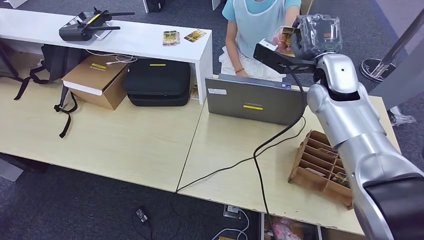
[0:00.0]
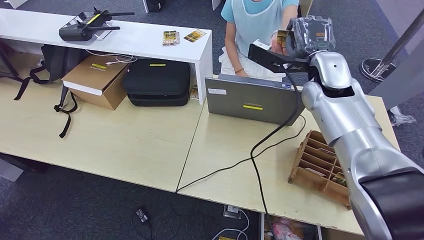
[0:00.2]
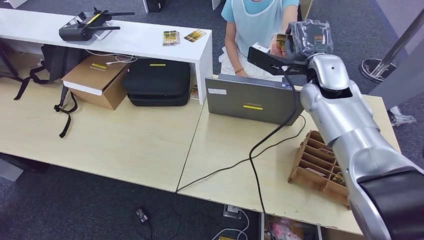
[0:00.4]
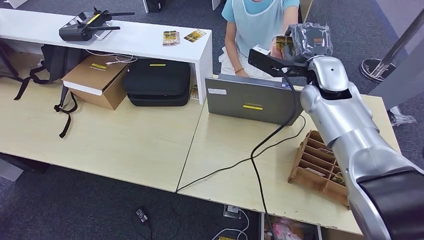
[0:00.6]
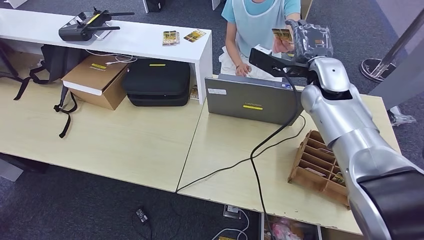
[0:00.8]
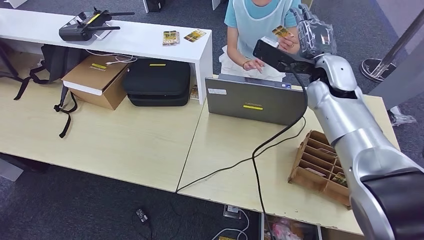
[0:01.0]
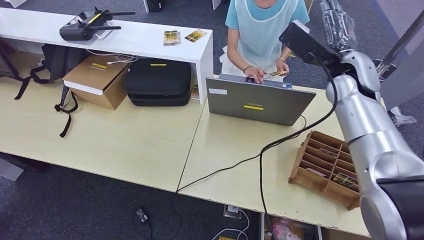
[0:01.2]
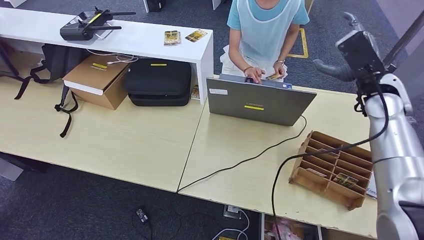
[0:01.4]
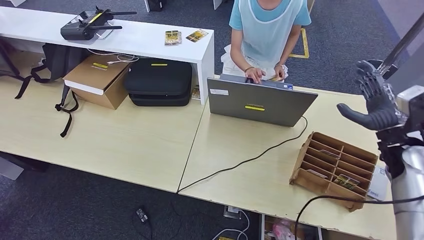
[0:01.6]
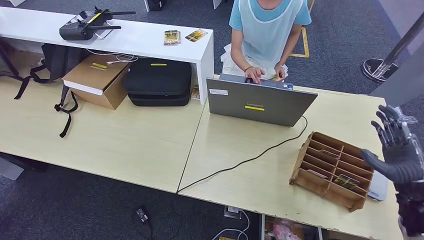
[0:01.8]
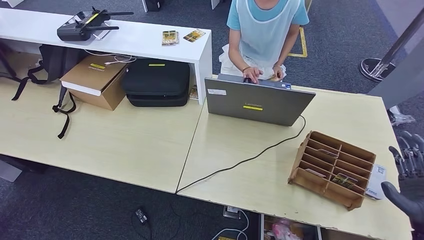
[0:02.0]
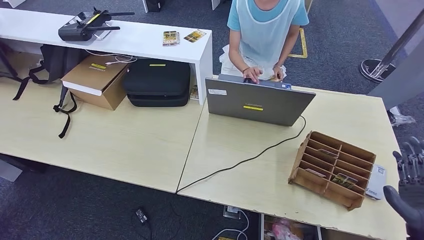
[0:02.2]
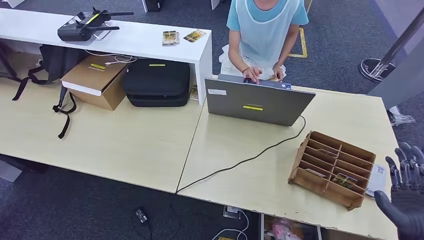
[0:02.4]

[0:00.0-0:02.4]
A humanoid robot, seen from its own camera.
Step, 0:00.0 to 0:02.2: Hand the room key to the person.
0:01.2 to 0:02.4: The right hand moves backward, downward and to the right, about 40 cm.
